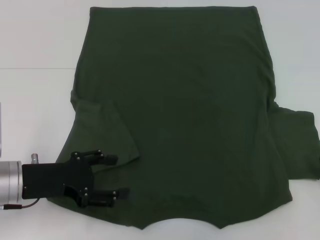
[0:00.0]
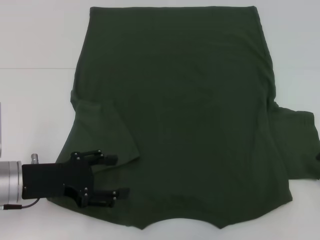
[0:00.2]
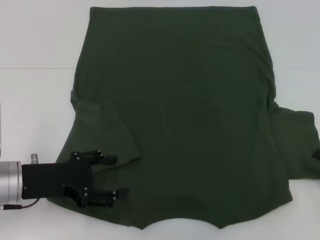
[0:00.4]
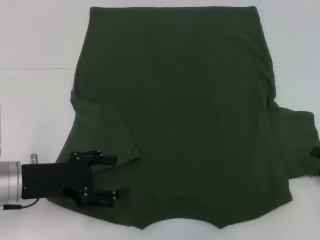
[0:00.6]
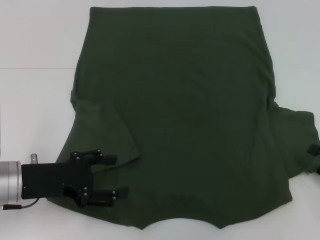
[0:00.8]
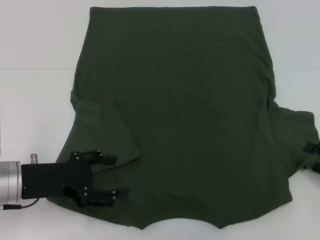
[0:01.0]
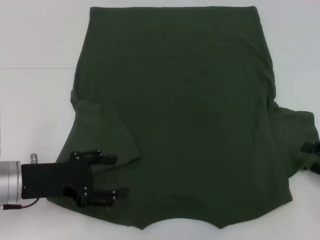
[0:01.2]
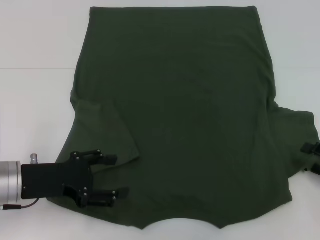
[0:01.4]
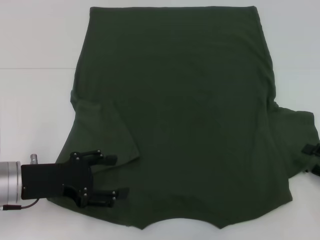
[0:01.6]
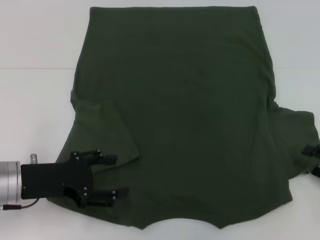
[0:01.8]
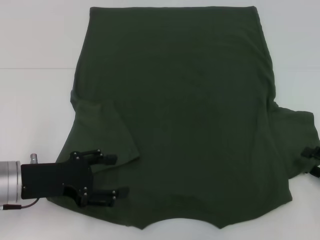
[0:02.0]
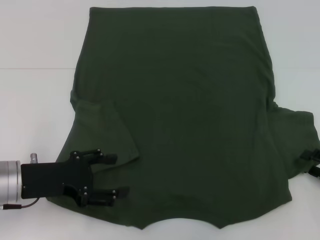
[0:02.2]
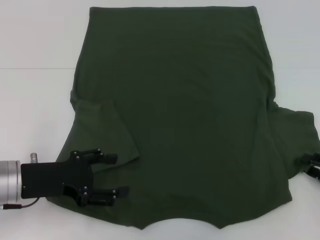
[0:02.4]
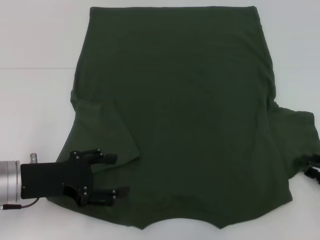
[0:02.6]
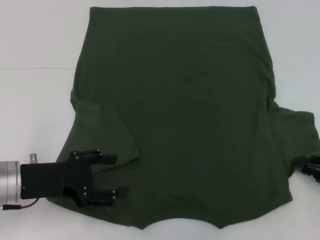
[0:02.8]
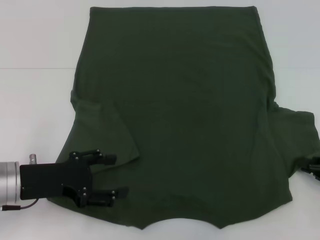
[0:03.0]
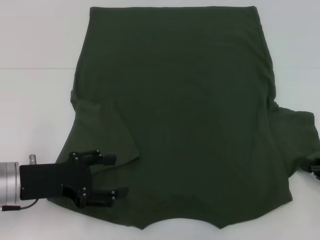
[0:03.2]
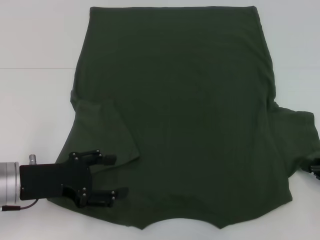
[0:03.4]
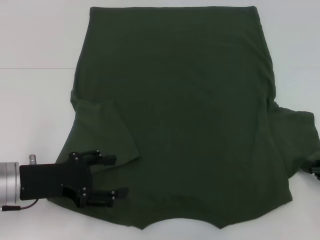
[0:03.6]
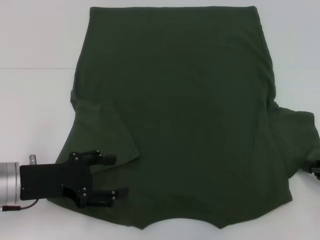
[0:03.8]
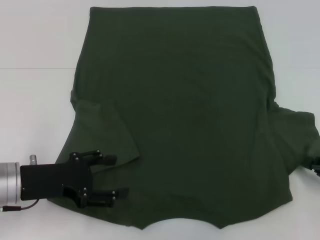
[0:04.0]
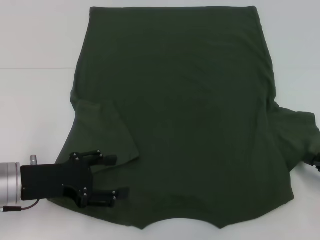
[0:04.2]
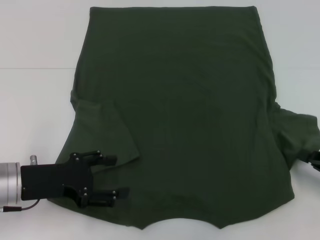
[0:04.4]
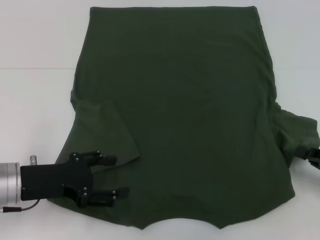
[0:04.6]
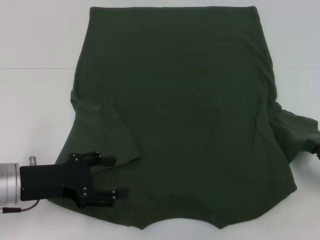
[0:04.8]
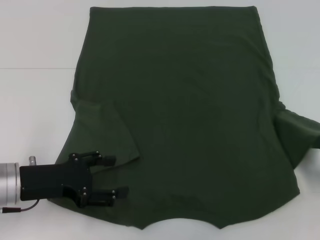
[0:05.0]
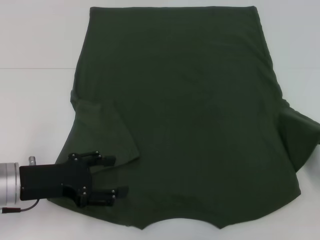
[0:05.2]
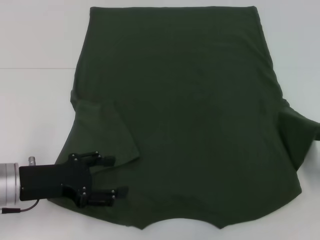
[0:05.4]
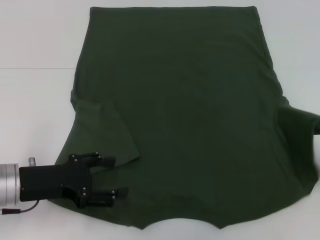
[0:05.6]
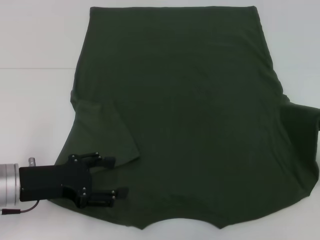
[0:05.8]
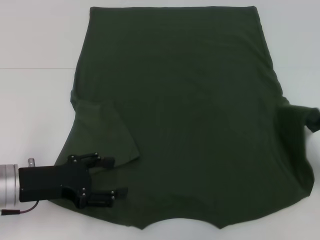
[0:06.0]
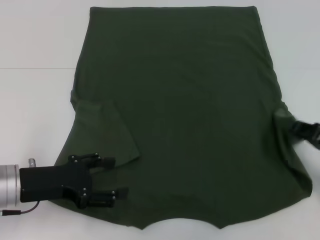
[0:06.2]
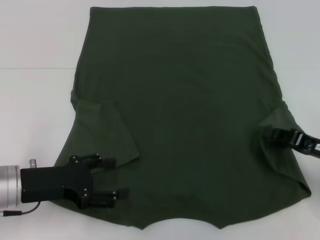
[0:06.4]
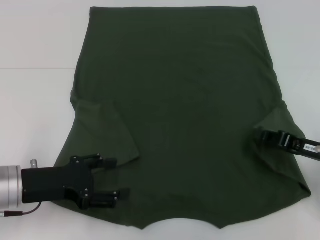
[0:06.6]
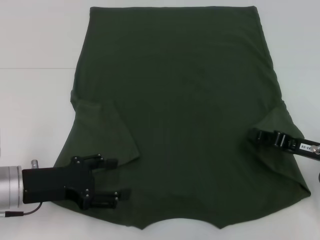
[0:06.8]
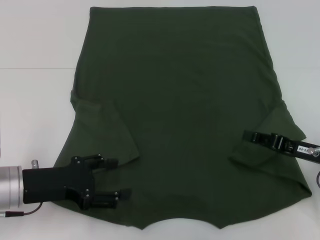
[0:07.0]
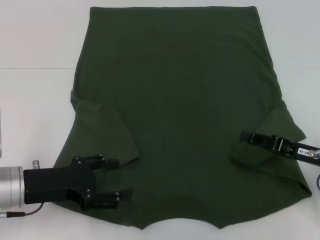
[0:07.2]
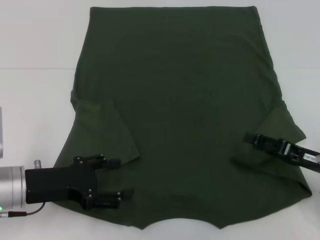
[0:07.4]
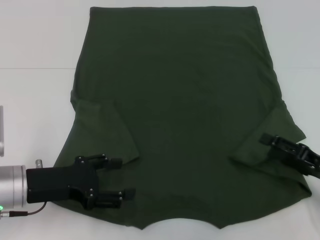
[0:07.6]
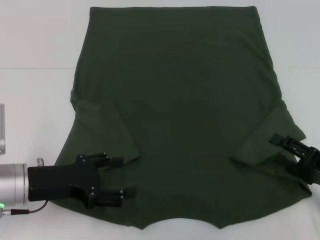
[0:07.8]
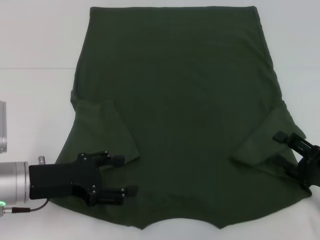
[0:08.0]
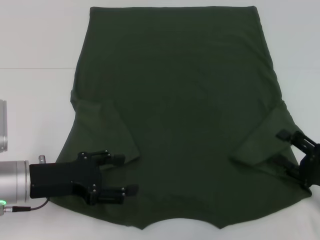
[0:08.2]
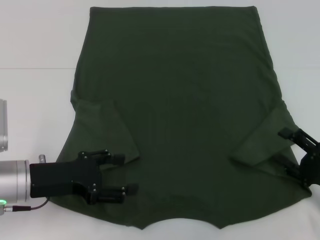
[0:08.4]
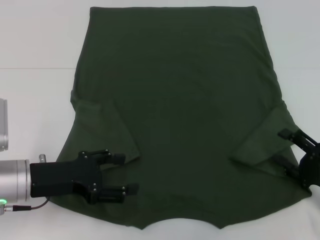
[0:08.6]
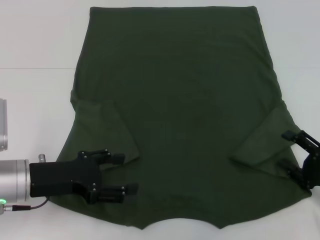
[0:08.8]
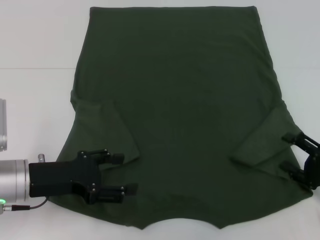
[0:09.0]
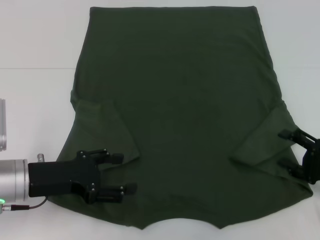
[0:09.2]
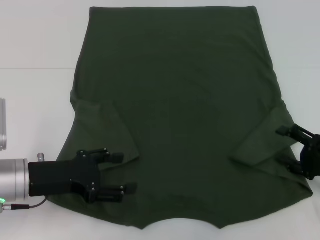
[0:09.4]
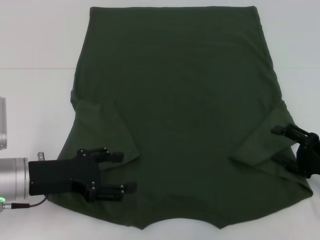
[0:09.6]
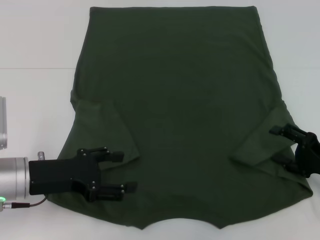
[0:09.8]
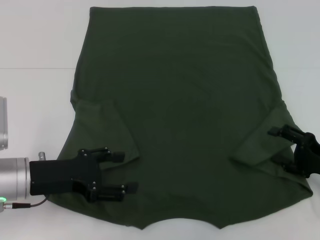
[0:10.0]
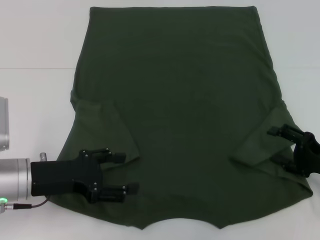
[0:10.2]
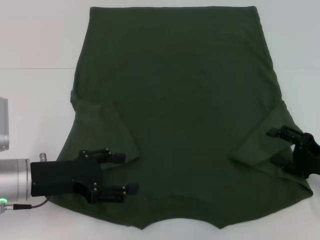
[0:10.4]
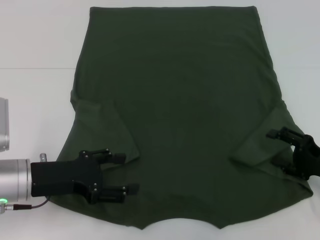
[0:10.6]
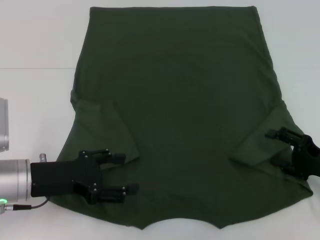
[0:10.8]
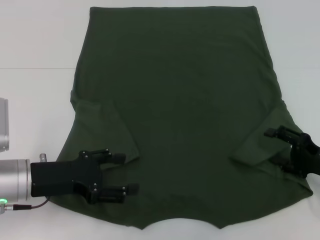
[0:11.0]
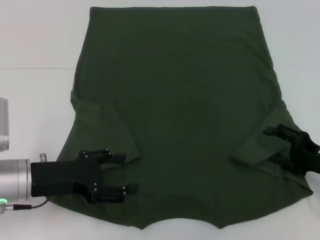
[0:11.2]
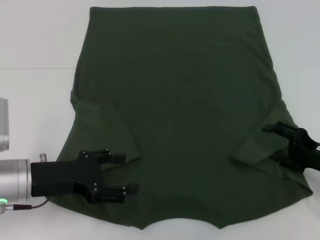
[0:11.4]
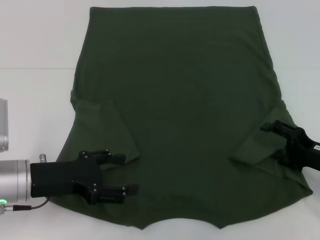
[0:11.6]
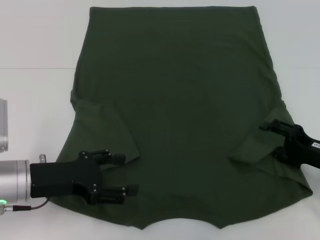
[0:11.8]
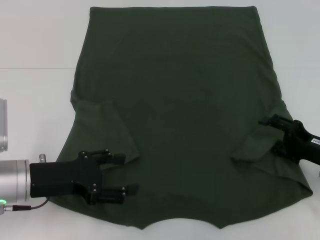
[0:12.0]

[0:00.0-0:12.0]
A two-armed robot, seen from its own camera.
Step, 0:00.0 to 0:07.0: Fold the bottom right sleeve with your right hand.
0:00.0 to 0:01.6: There are only small adjustments of the grippers.
0:03.0 to 0:04.4: The right gripper closes up.
0:04.4 to 0:06.0: The grippers stay close to where they were, moving slightly.
0:06.0 to 0:07.6: The right gripper shifts by roughly 5 cm, and opens up.
0:09.0 to 0:10.4: The grippers make only small movements.
0:10.4 to 0:12.0: The grippers make only small movements.

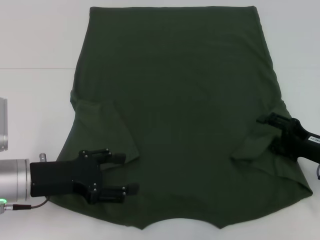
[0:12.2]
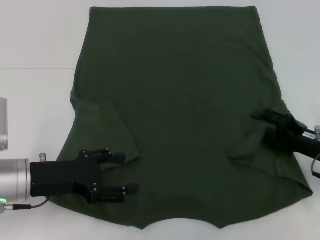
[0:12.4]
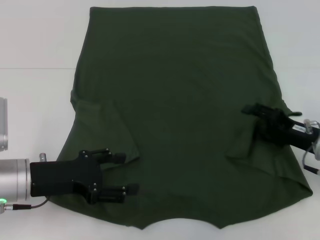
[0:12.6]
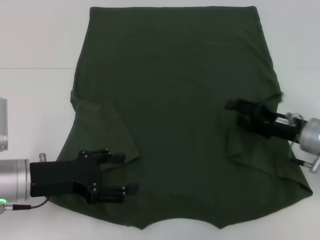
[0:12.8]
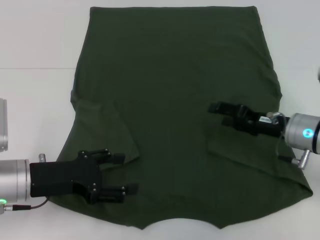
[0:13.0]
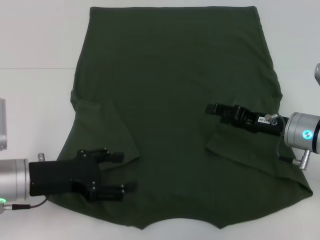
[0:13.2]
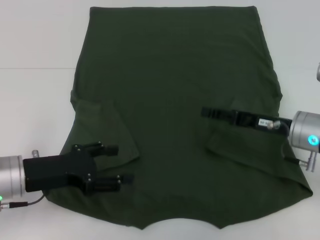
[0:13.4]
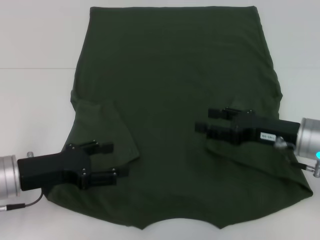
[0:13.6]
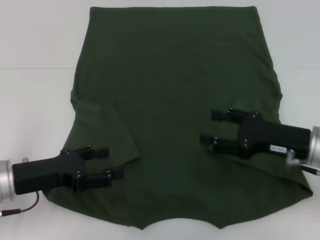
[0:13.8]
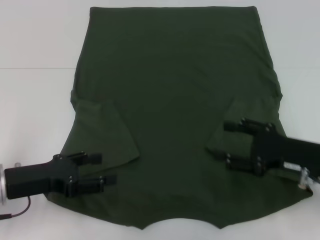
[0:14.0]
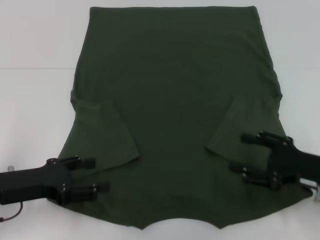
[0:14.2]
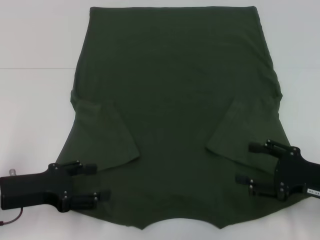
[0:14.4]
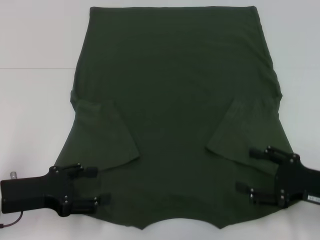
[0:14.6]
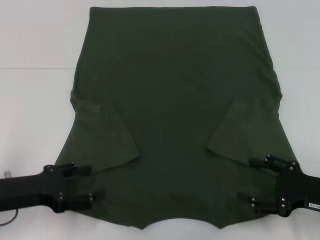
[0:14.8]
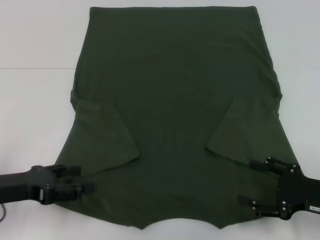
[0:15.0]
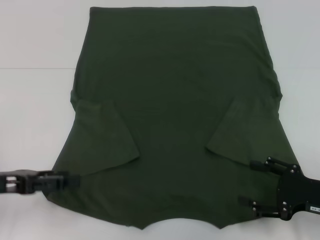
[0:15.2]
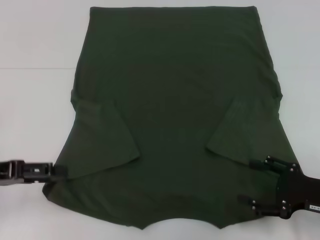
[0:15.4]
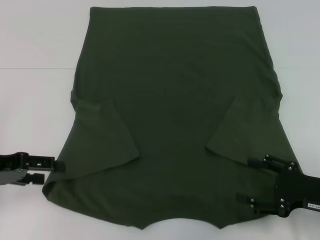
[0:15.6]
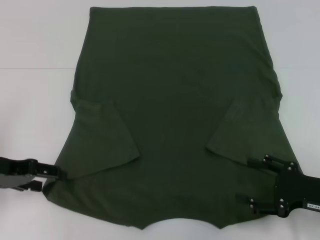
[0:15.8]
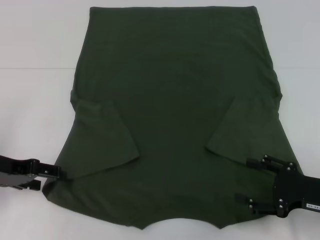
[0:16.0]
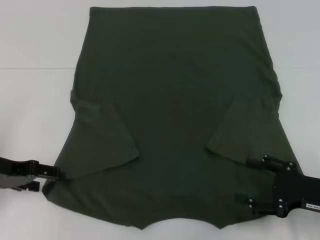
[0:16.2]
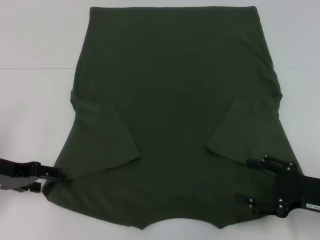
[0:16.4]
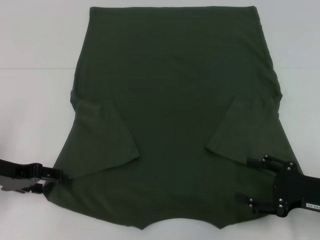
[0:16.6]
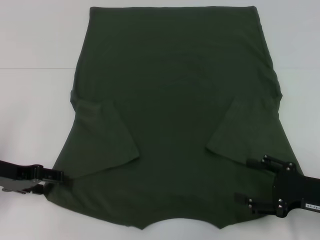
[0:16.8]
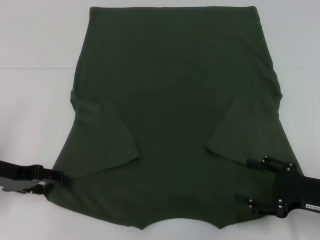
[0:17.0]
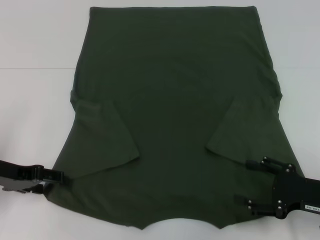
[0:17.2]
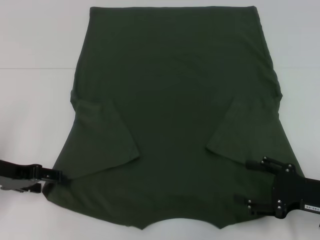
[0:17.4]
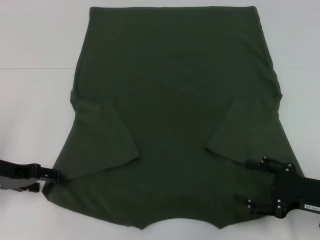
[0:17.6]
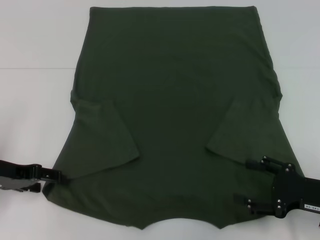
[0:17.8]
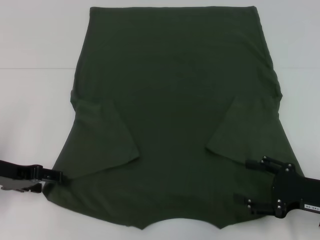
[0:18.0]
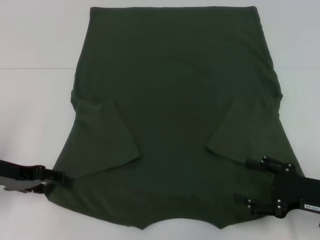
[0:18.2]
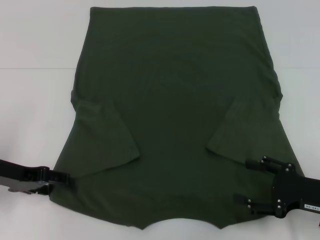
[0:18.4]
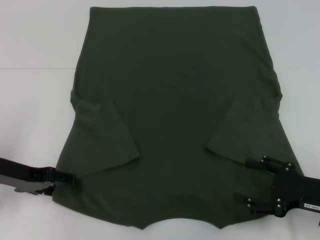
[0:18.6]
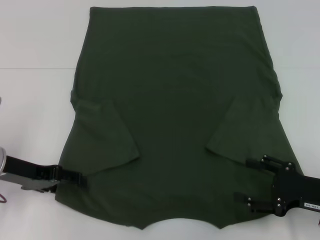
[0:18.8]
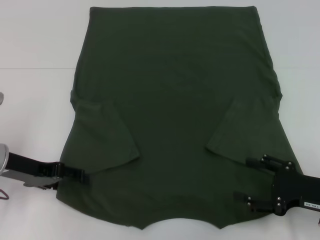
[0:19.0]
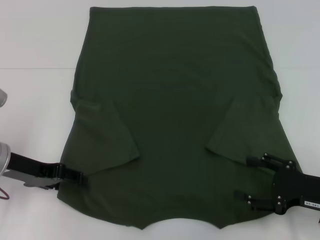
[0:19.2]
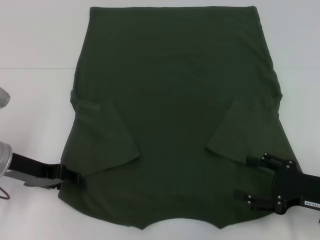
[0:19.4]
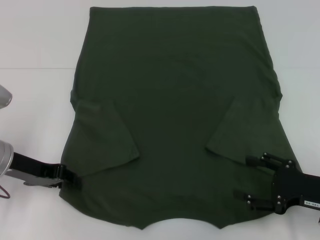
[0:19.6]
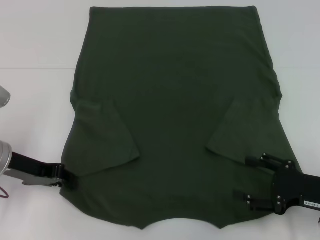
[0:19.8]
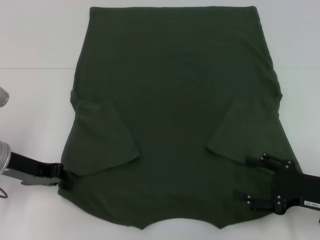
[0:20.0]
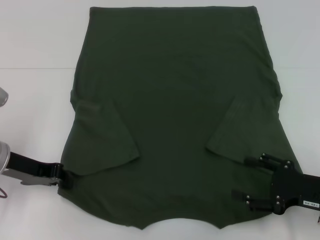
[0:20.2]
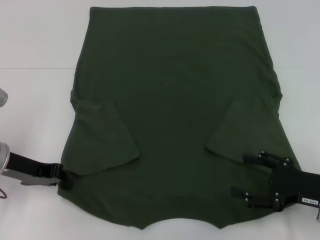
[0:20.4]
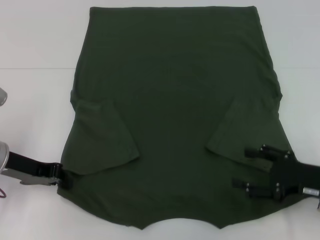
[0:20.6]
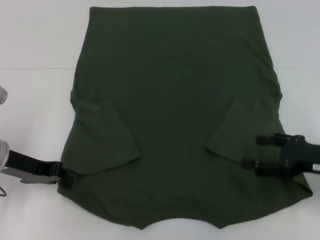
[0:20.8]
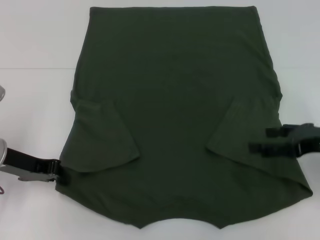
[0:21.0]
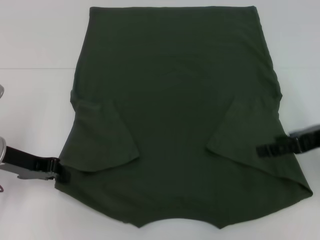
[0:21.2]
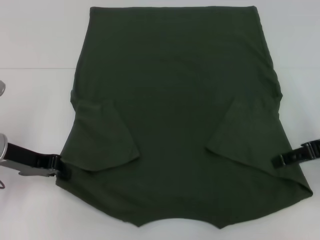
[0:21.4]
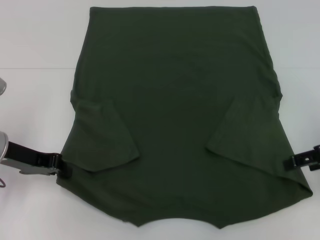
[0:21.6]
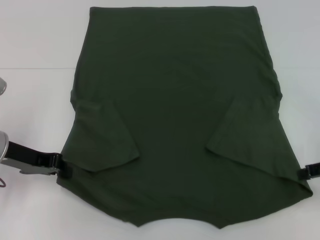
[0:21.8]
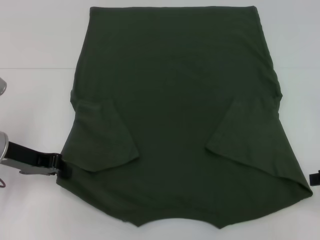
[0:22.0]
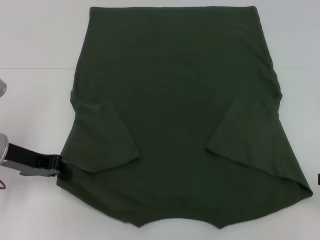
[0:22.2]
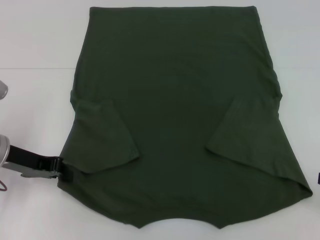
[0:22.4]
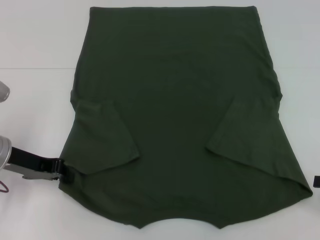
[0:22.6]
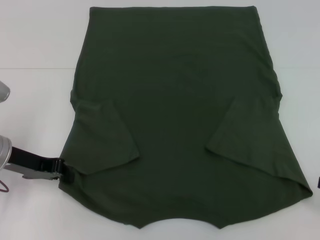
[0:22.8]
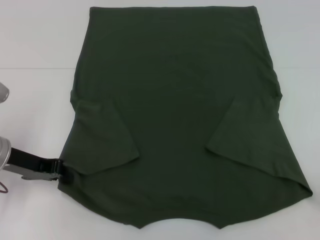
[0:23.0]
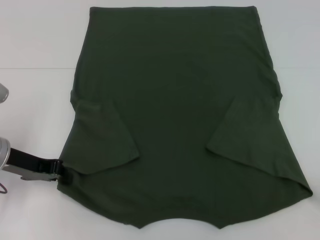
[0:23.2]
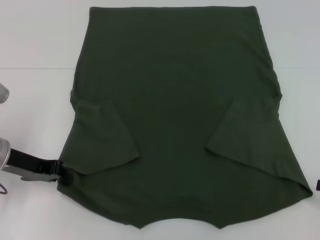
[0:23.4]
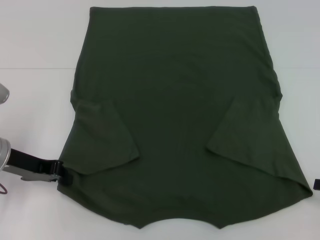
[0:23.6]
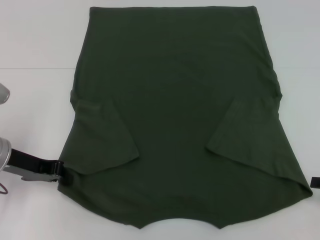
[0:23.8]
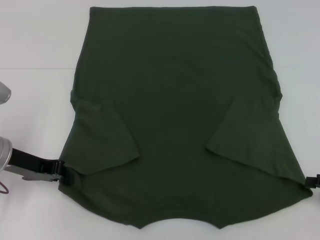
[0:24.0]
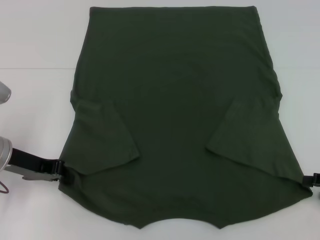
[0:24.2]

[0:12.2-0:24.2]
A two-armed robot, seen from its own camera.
Step, 0:12.2 to 0:20.6: Grab the bottom left corner with your left hand.
0:12.2 to 0:13.8: The right gripper is displaced to the left and upward by roughly 10 cm.
0:13.8 to 0:15.2: The left gripper travels to the left by about 5 cm. The right gripper heads backward and to the right, covering some 10 cm.
0:15.2 to 0:16.6: The left gripper heads forward, covering roughly 5 cm.
0:16.6 to 0:18.2: Both grippers stay about where they are.
0:18.2 to 0:19.8: The left gripper closes.
0:19.8 to 0:21.2: The right gripper heads upward and forward, covering some 15 cm.
0:21.2 to 0:22.6: The right gripper goes roughly 15 cm to the right, backward and downward.
